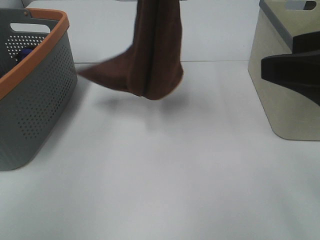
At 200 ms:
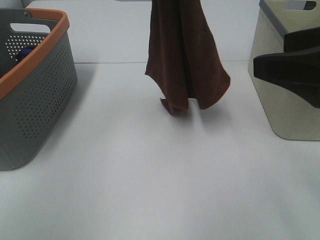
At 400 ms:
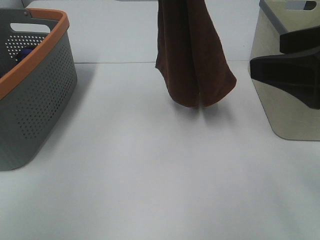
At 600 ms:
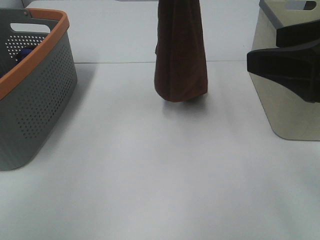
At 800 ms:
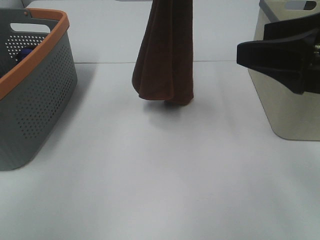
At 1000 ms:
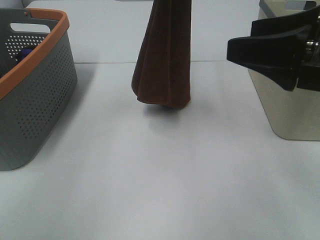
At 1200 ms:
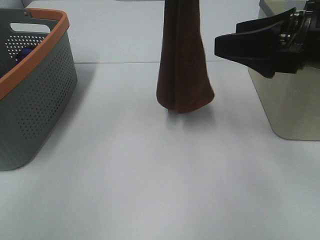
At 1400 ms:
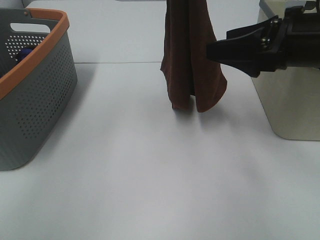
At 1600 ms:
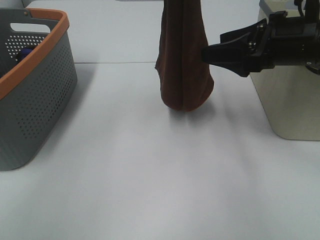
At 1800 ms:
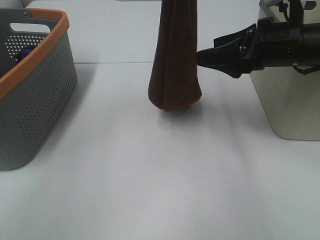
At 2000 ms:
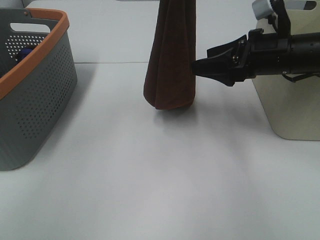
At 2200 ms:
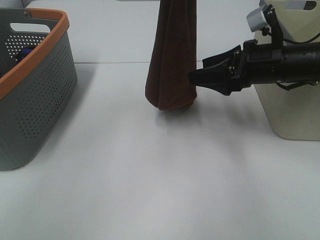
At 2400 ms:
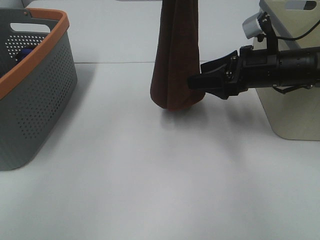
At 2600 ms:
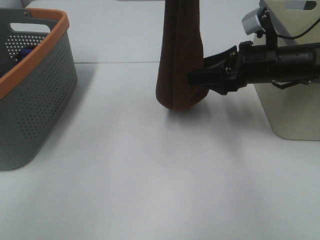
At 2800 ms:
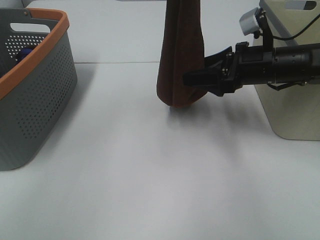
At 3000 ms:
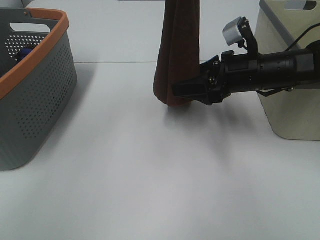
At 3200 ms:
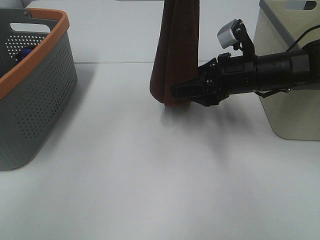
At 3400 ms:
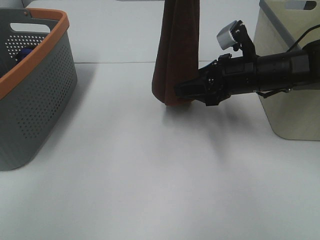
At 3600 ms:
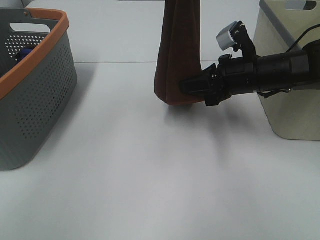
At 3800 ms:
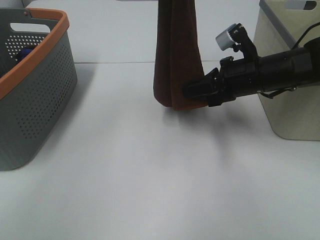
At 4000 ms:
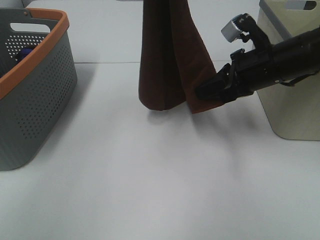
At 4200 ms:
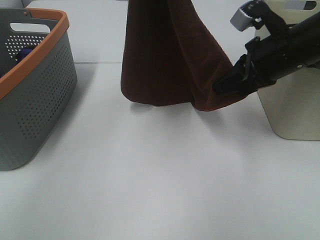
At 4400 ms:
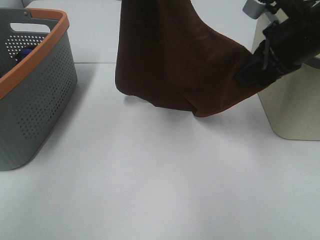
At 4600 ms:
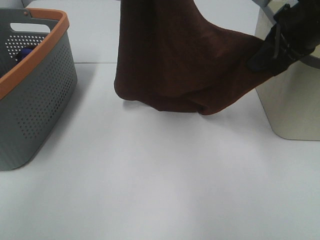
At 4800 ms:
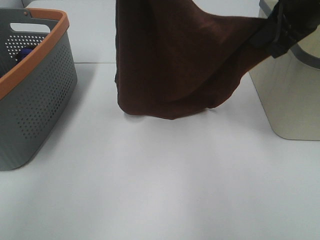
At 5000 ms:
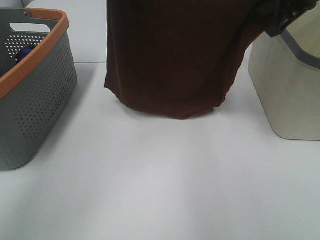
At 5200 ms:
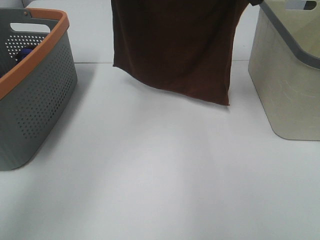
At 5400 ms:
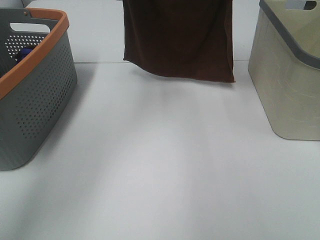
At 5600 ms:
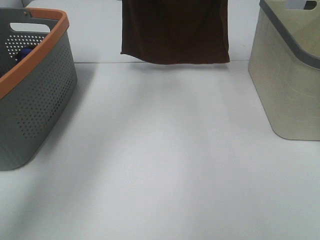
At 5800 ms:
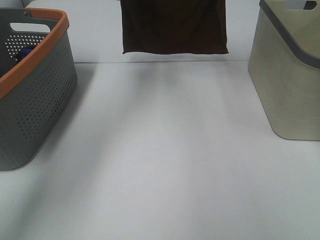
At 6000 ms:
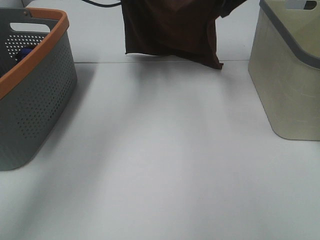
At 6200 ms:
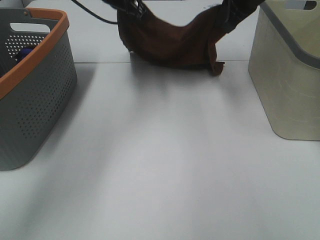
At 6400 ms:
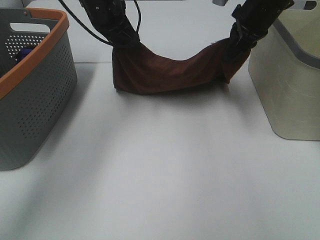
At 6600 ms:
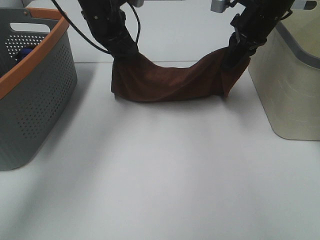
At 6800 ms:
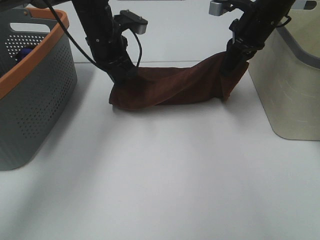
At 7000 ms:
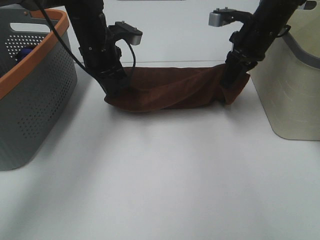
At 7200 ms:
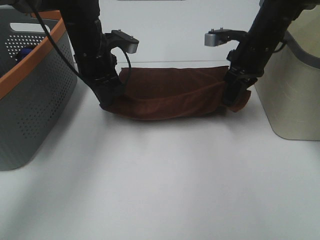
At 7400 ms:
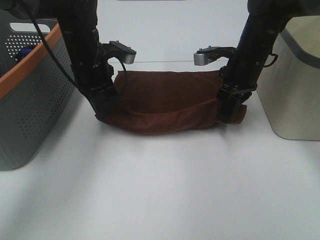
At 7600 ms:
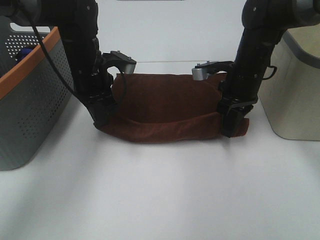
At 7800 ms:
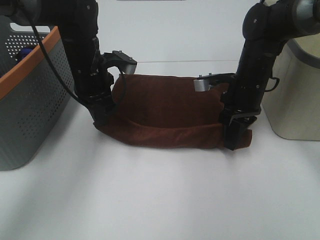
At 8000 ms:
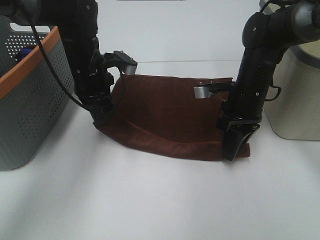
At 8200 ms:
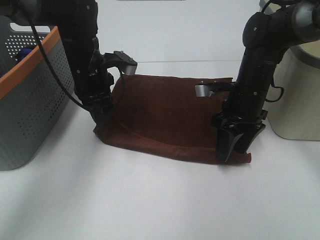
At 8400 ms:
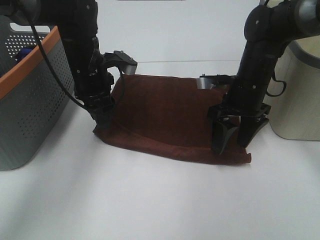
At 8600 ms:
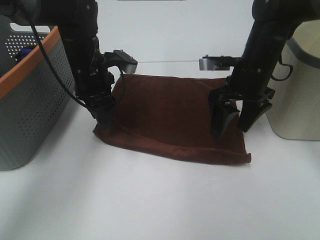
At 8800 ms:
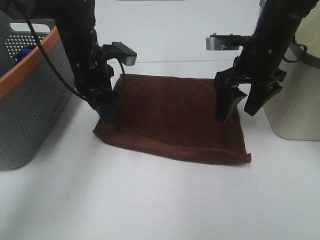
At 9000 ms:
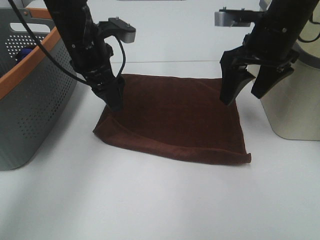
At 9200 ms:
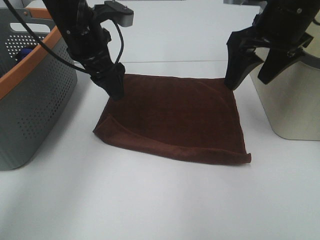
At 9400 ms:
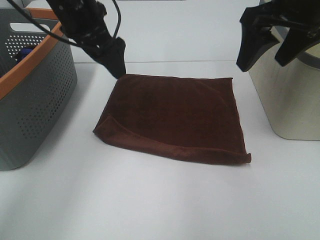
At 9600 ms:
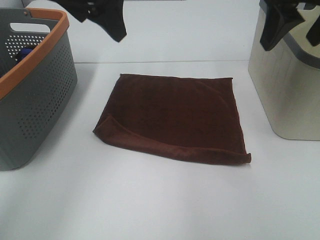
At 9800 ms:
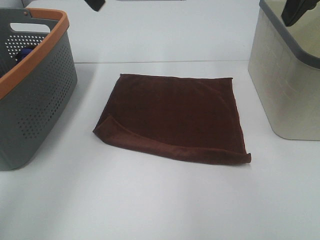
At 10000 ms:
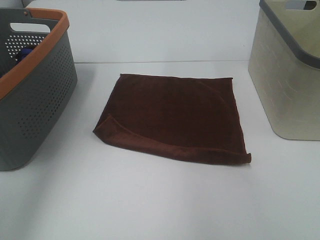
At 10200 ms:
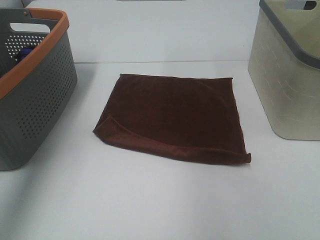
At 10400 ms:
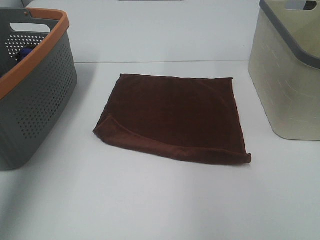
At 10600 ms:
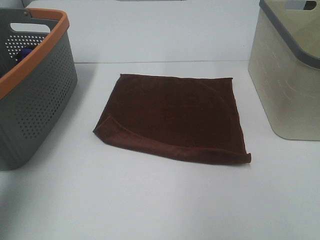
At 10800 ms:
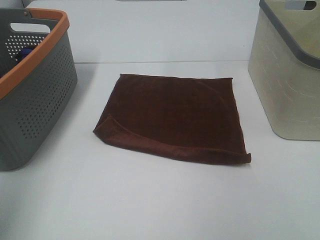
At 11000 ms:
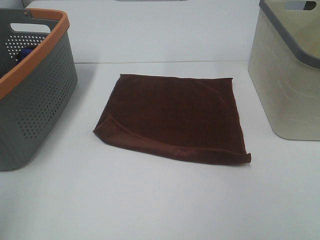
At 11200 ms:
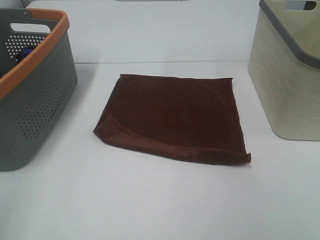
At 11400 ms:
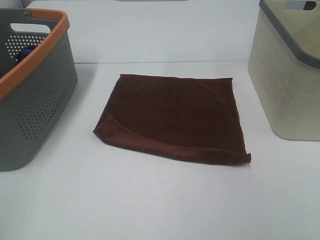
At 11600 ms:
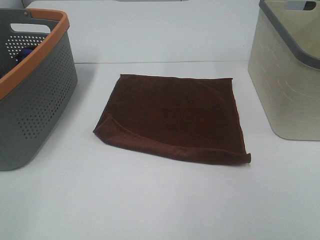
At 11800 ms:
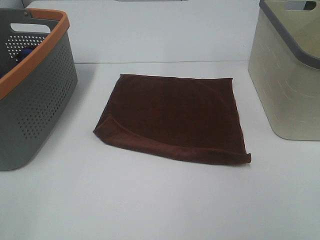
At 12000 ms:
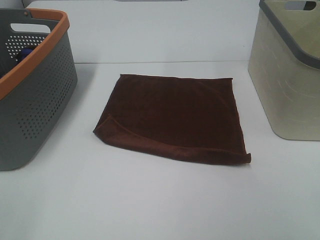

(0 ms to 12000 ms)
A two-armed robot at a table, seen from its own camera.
Task of the whole recording: Remove the towel and place it.
Step, 1800 ms - 4000 ms: Right hand: spread the brown towel flat on the table.
0 ms - 1600 ms: The right gripper is displaced forward and downward by roughly 15 cm.
1600 ms - 3000 ms: The right gripper moves downward, some 10 cm.
3000 ms - 4400 ms: The right gripper travels upward by about 10 cm, and closes.
4400 ms - 6000 ms: The left gripper shifts about 20 cm forward and downward; the right gripper moves forward, approximately 20 cm.
6000 ms - 7600 ms: The grippers both shift downward and backward by approximately 20 cm.
7600 ms - 9000 ms: The left gripper moves upward, roughly 5 cm, and opens up. Meanwhile the right gripper travels upward by roughly 10 cm, and opens its fingers.
9000 ms - 10400 ms: The right gripper shifts roughly 25 cm upward, backward and to the right. Meanwhile the left gripper heads upward, to the left and backward, covering about 30 cm.
10400 ms - 12000 ms: The left gripper shifts roughly 25 cm backward and downward.

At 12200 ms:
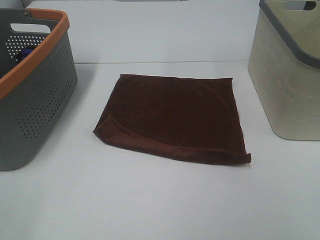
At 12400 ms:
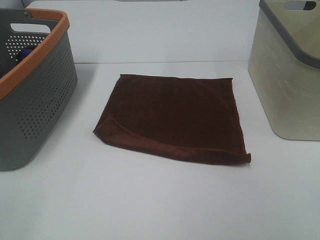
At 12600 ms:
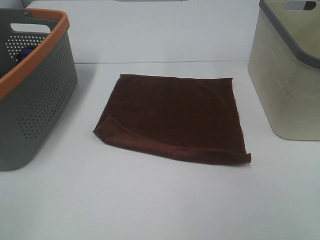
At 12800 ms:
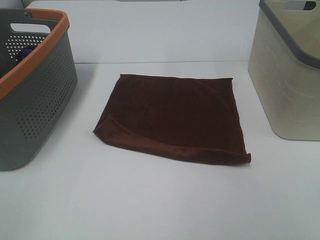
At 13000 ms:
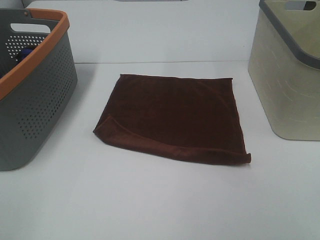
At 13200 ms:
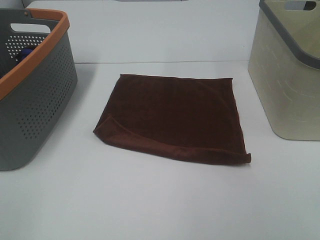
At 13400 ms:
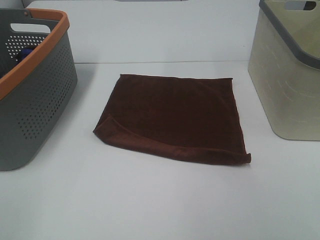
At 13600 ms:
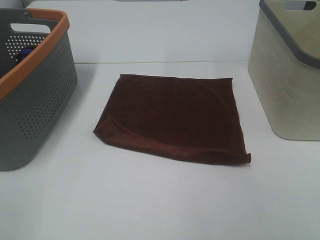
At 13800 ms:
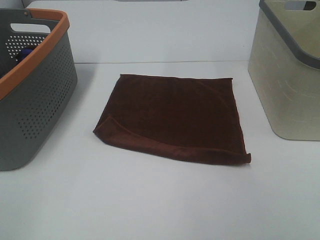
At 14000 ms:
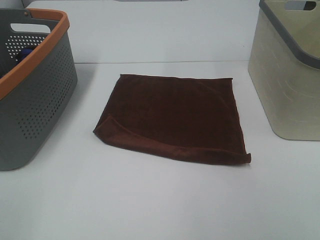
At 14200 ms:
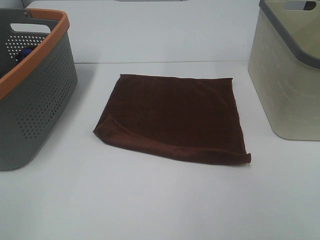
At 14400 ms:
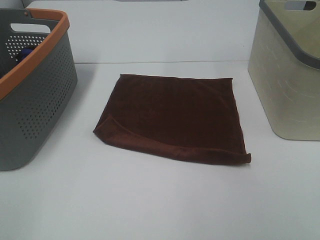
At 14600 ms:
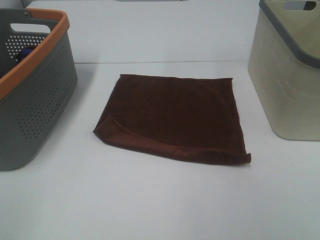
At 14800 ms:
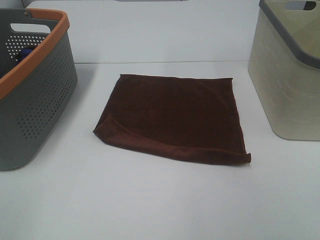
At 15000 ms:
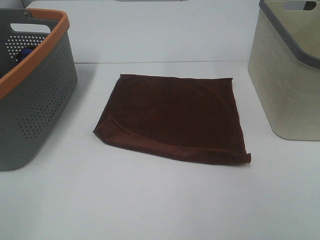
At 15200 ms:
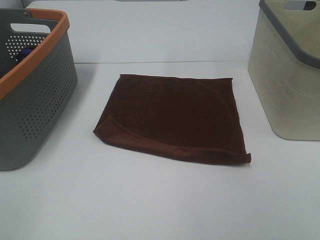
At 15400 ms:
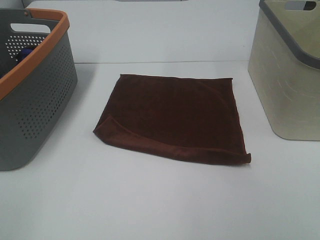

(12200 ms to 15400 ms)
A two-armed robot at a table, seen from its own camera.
Task of the whole recording: Remove the towel and place it.
13800 ms - 15400 ms: Both grippers stay about where they are.

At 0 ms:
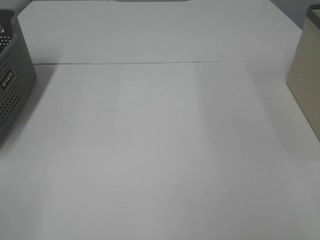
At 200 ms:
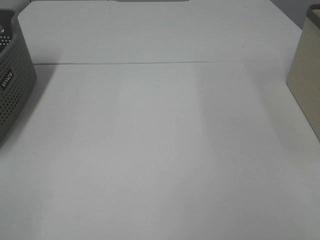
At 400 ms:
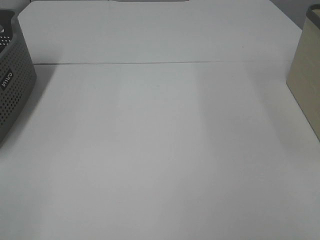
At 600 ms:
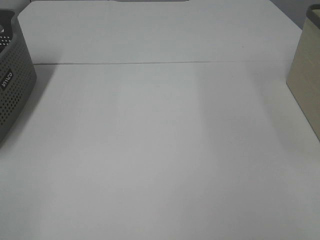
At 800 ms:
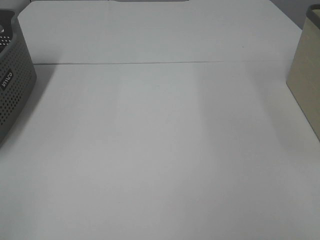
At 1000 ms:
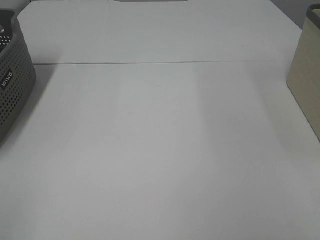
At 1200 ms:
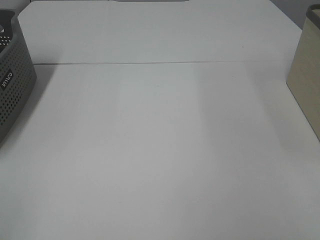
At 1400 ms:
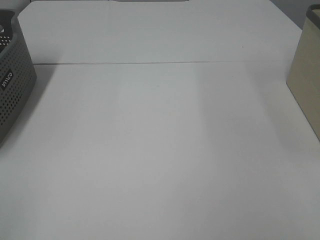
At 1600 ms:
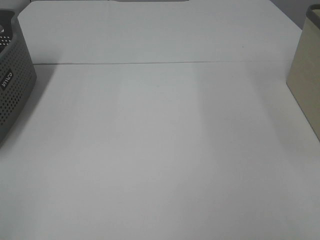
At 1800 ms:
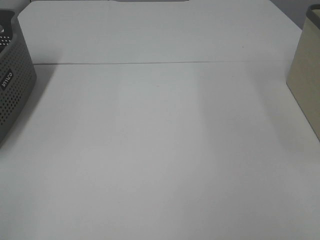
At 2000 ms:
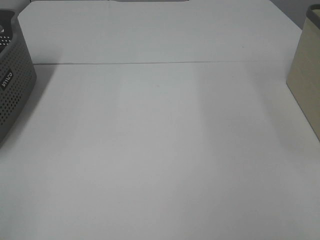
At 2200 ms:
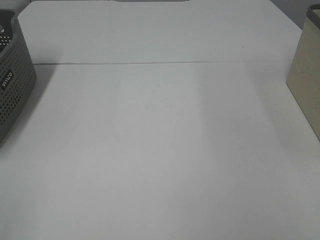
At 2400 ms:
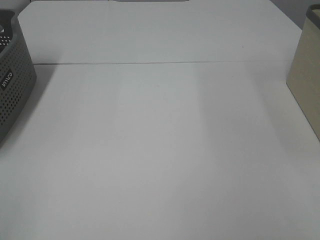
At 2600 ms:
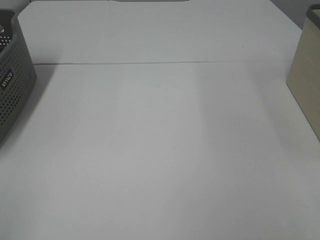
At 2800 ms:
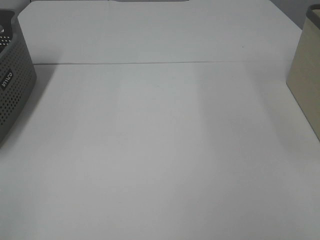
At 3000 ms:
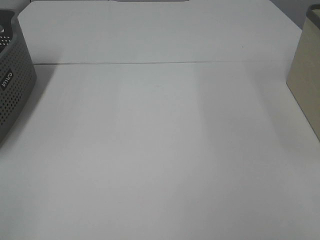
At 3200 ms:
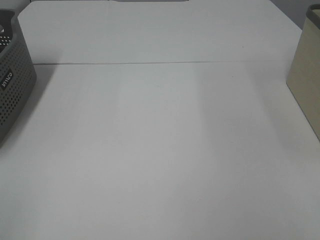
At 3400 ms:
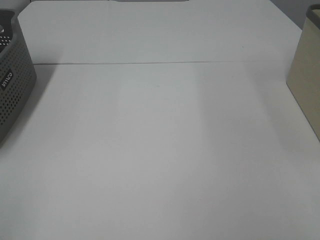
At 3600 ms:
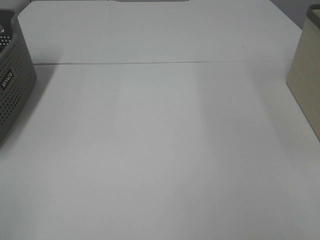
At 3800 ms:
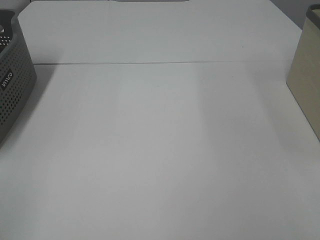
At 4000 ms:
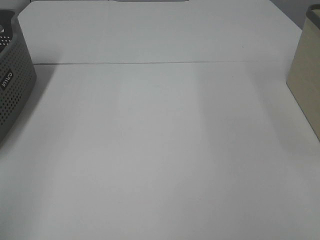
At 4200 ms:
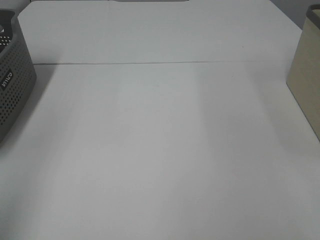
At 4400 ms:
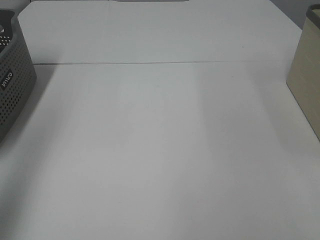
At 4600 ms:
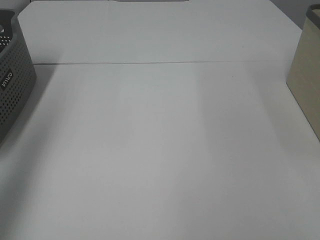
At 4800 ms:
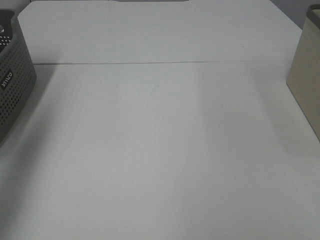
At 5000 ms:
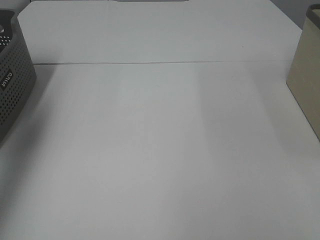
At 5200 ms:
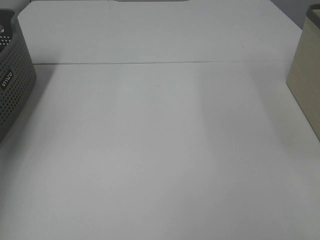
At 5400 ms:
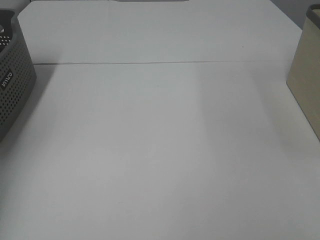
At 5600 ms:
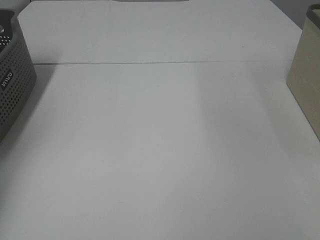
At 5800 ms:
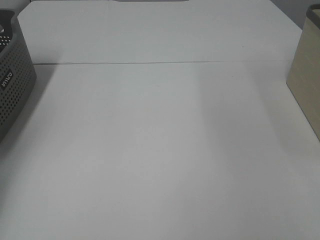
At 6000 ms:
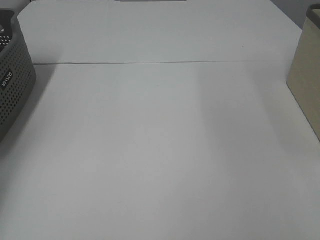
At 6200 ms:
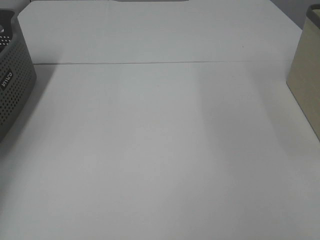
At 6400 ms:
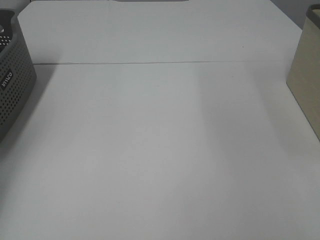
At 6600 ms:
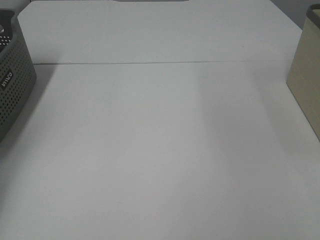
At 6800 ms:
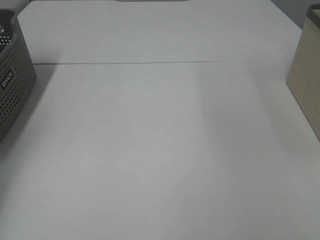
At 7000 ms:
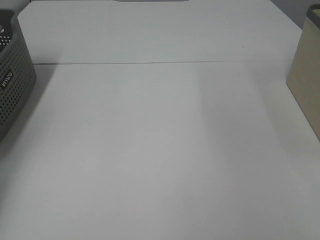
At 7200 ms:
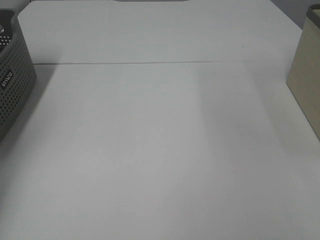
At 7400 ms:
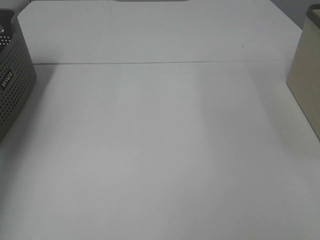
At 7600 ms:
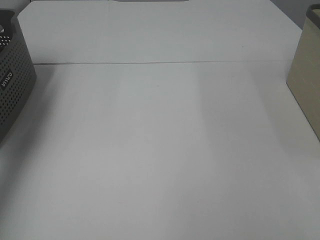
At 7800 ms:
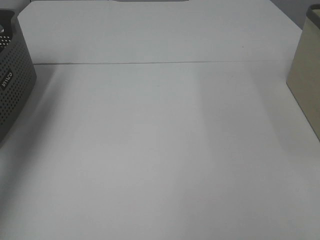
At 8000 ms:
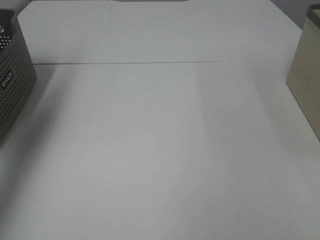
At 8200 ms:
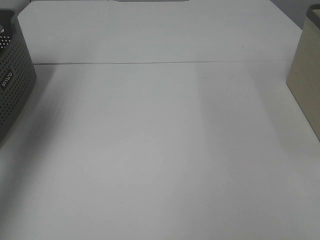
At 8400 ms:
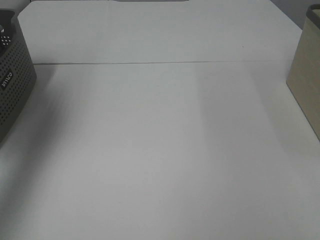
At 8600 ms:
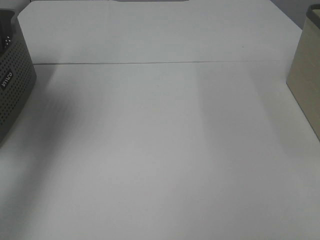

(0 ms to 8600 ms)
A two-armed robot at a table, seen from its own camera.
Task of the whole recording: Remove the towel and place it.
1400 ms - 2800 ms: Both grippers stay put.
2800 ms - 4400 ms: The left gripper goes roughly 20 cm forward and upward.
4400 ms - 5800 ms: The left gripper moves forward and downward, about 35 cm.
7200 ms - 8600 ms: The left gripper is displaced upward and to the right by some 30 cm.
